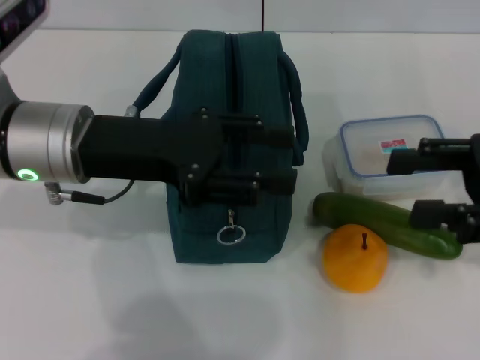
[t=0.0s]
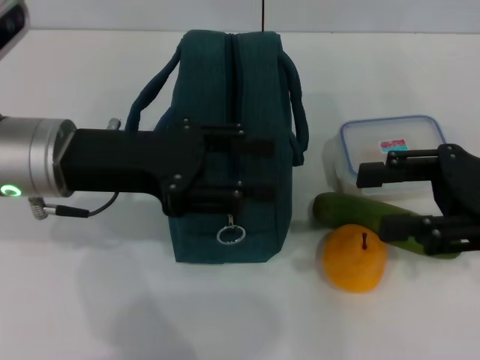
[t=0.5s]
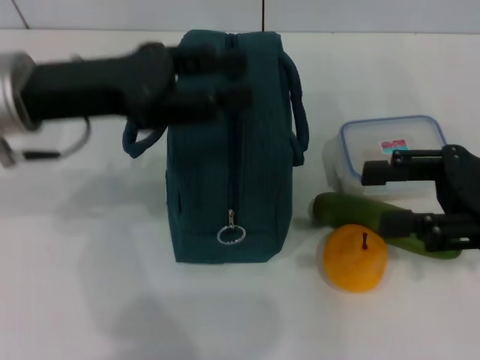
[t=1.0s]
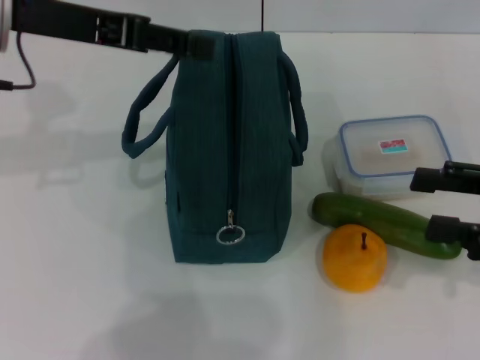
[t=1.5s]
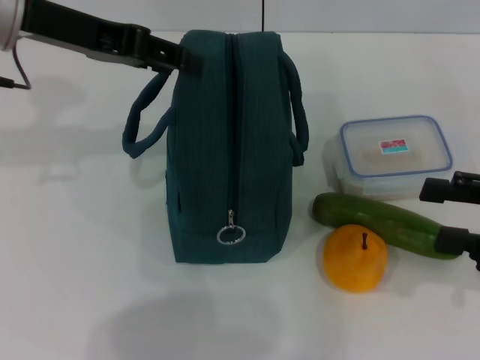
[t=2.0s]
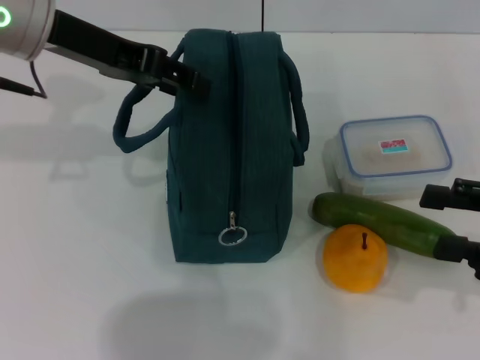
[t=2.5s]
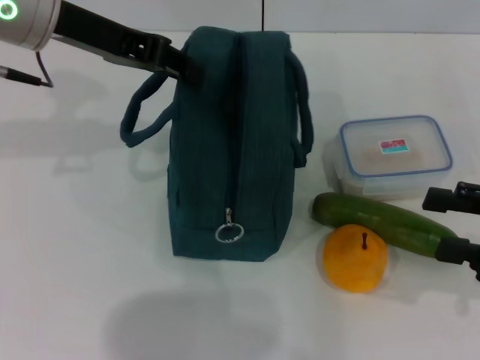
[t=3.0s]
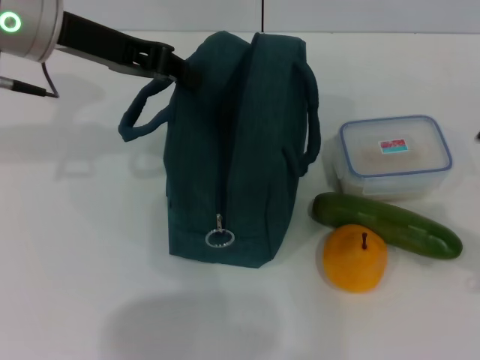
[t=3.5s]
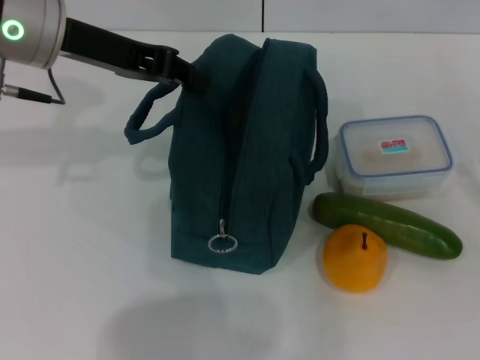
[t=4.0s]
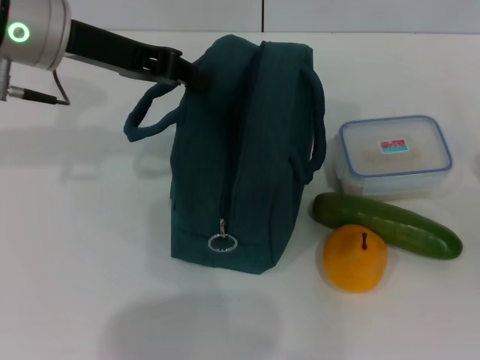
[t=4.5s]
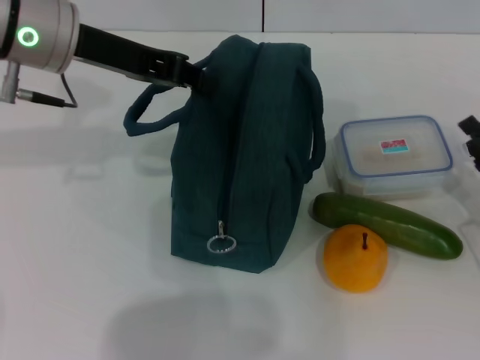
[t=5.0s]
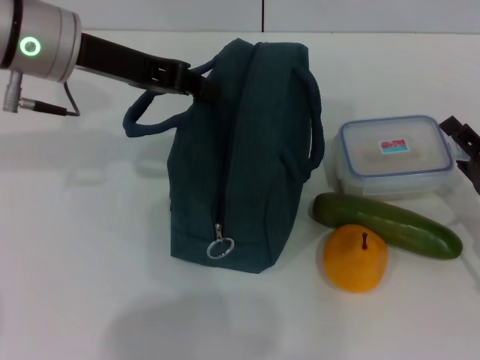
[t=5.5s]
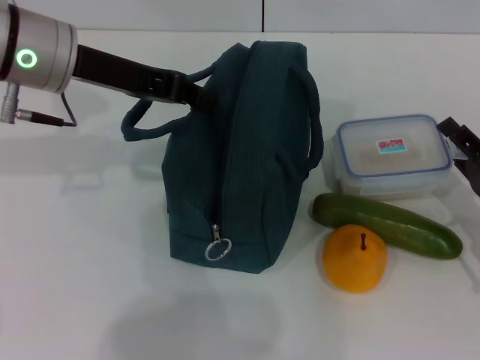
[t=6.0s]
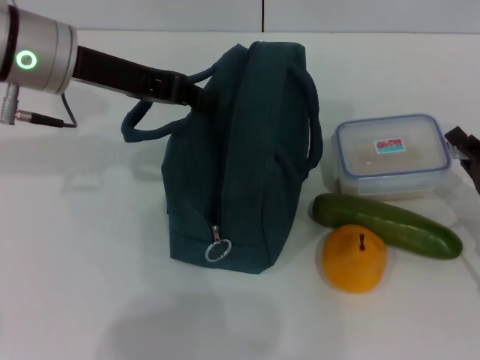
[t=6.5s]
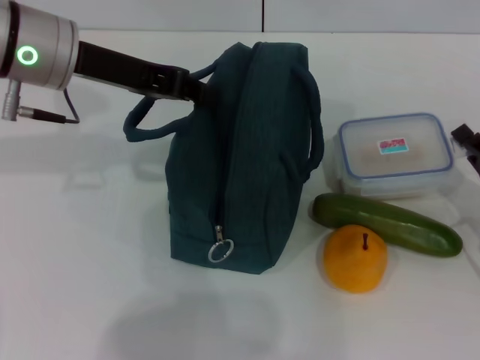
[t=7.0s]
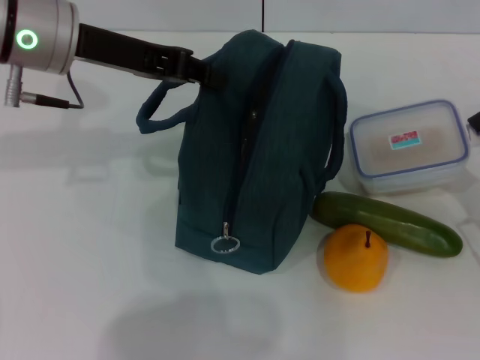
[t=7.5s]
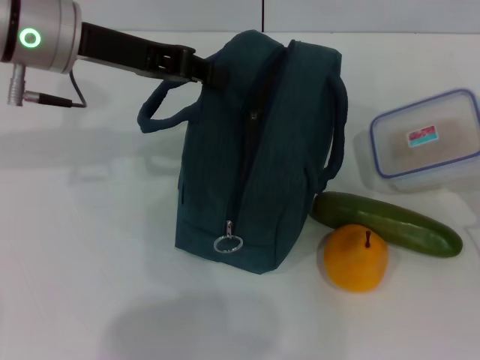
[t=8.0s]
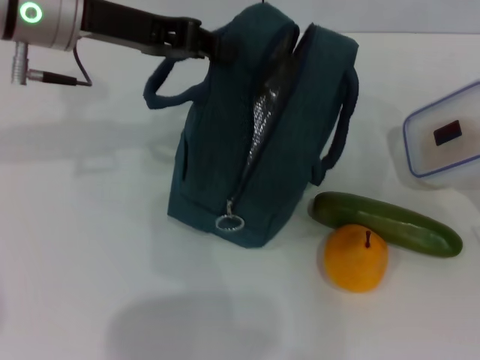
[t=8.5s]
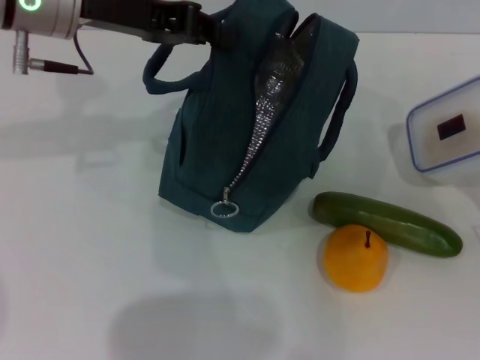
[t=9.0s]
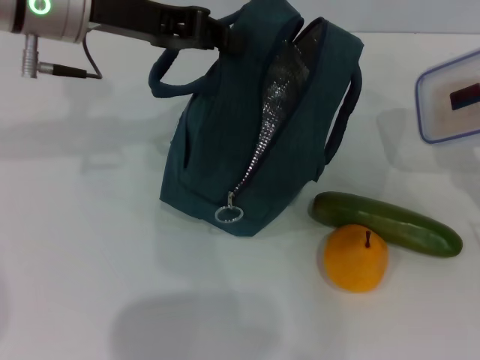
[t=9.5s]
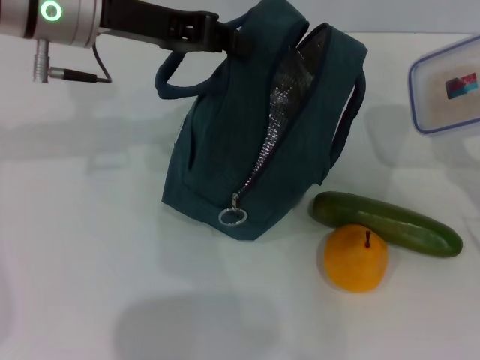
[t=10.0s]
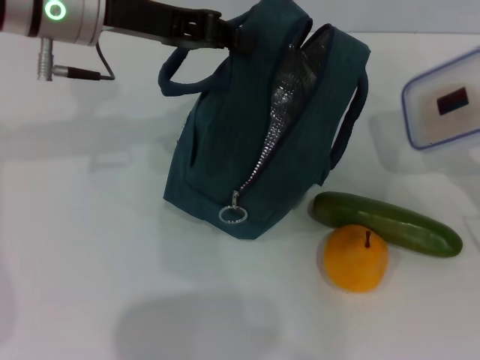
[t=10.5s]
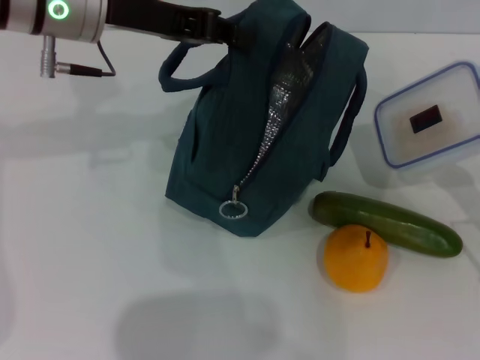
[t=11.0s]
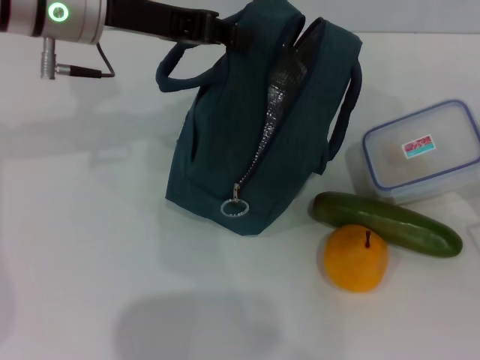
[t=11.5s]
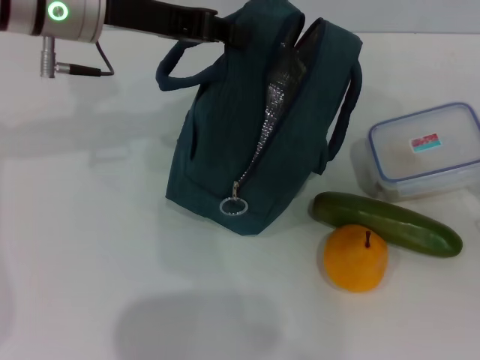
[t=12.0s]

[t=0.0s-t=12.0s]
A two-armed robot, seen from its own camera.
Step, t=0.0s to t=3.0s: Hold the lunch bag with your left hand.
t=0.0s to t=2.0s: The right gripper ends up roughly 5 cm from where it was; the left gripper travels upward and forward by roughly 10 cm.
t=2.0s to t=4.0s: The right gripper shifts roughly 10 cm downward and to the right; the left gripper closes its fingers.
t=4.0s to t=6.0s: The right gripper travels to the left by approximately 10 cm.
t=6.0s to t=8.0s: The right gripper closes up.

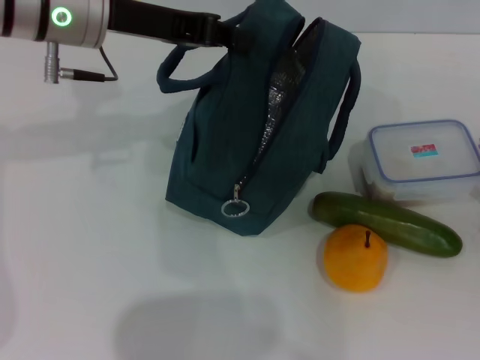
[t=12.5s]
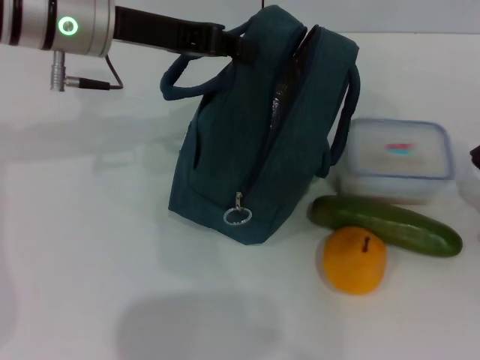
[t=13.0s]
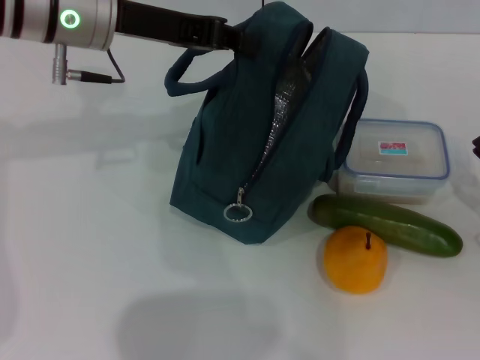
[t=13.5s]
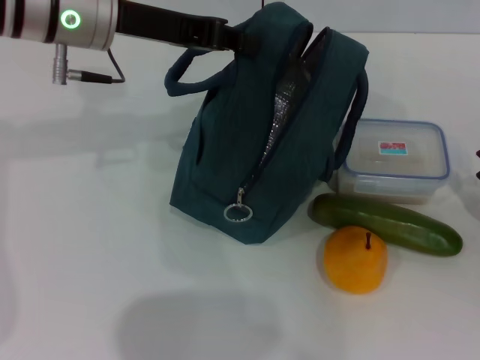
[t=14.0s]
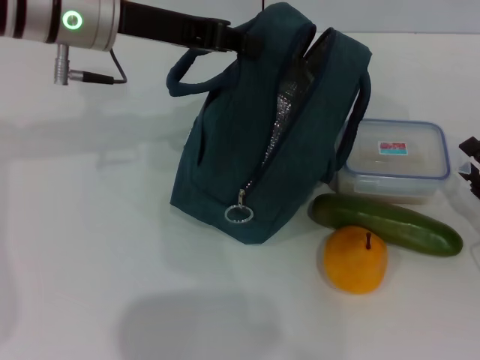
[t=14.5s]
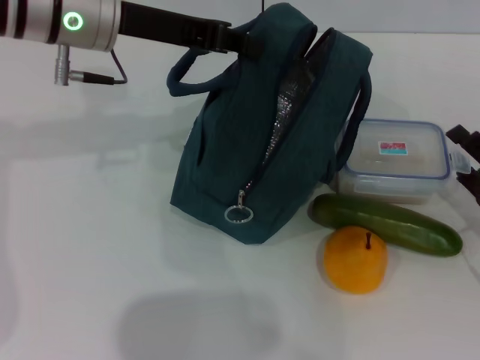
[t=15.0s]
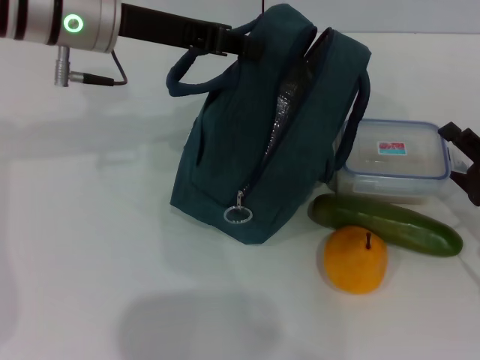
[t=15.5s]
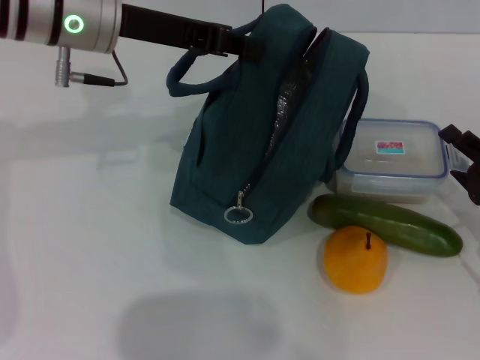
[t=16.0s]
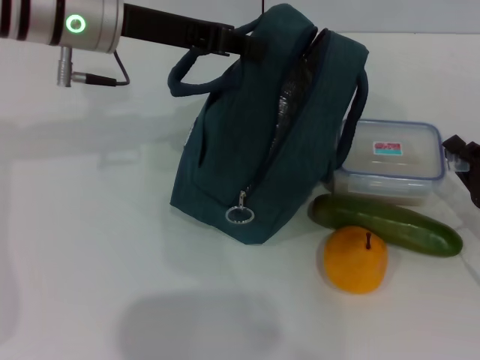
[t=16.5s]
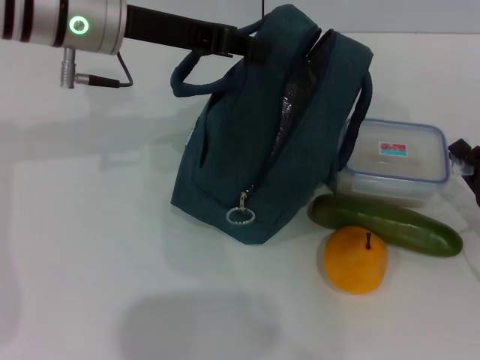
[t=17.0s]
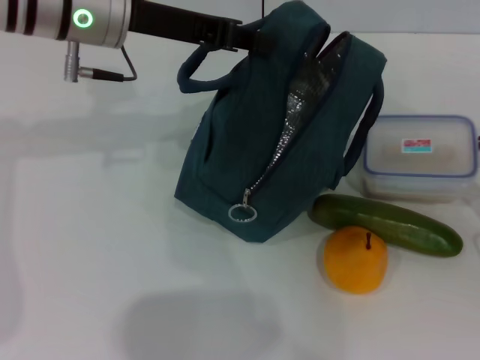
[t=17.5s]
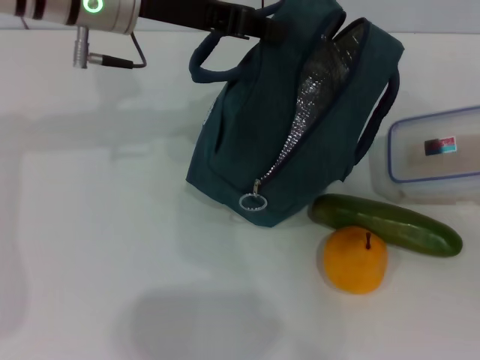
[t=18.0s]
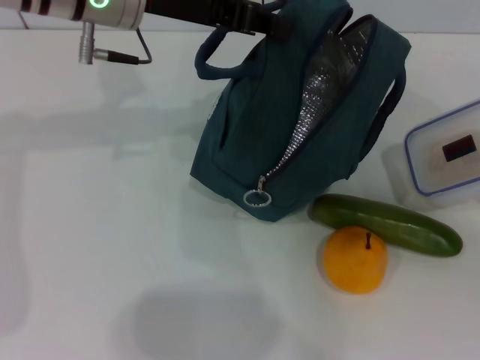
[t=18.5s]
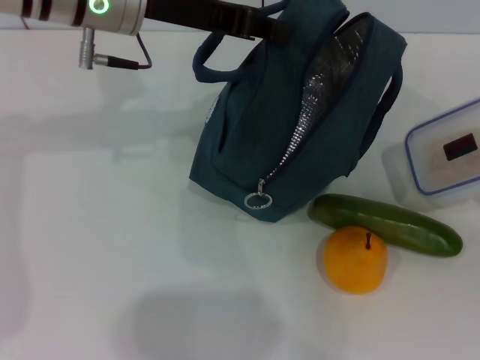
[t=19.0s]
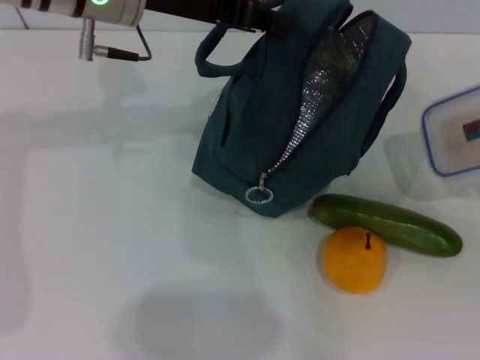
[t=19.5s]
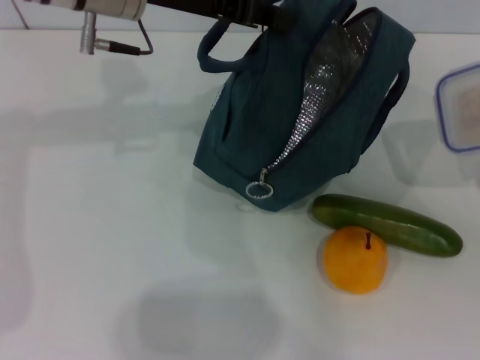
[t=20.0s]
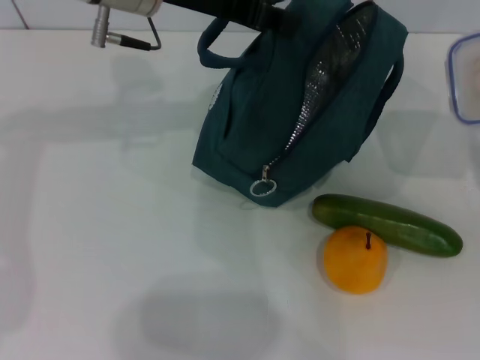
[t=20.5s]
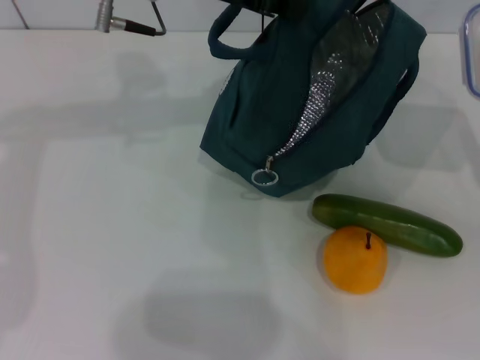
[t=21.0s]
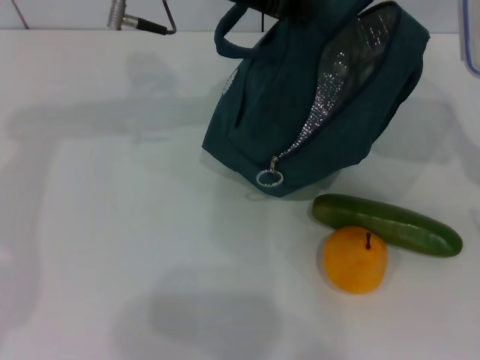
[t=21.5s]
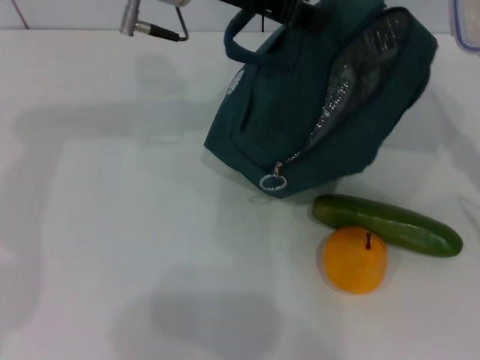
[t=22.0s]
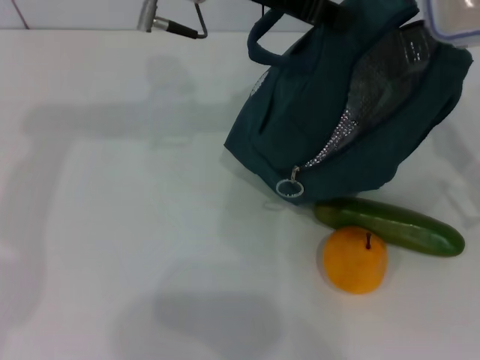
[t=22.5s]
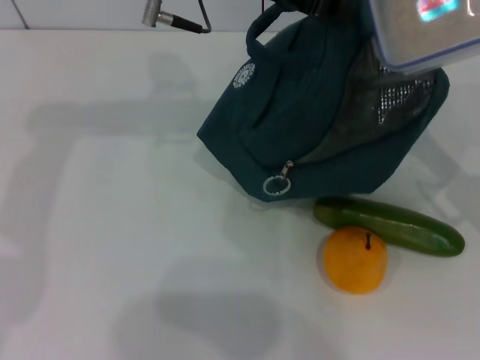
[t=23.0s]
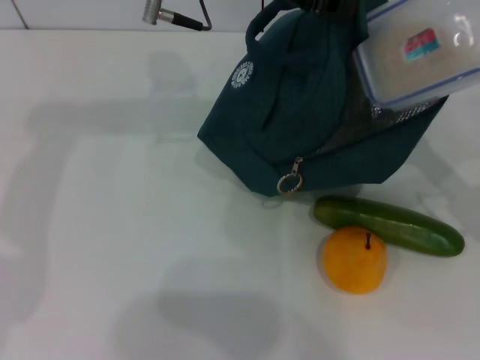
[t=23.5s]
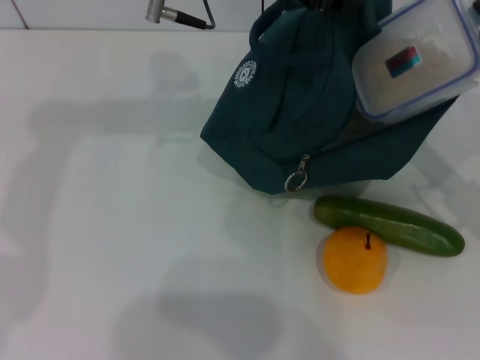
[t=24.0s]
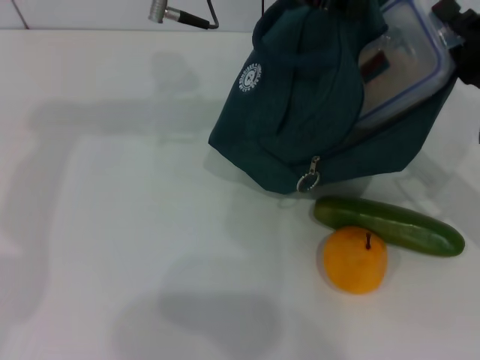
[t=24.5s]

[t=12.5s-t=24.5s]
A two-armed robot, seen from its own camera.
Step, t=12.5s to t=16.5s: Pick up the lunch box with your right hand.
t=12.5s to t=14.5s: The right gripper opens.
t=14.5s to t=16.5s: The right gripper closes up.
t=16.5s to t=18.5s: The right gripper shifts by roughly 5 cm.
t=18.5s to t=20.5s: The grippers move only a little.
t=20.5s to t=22.5s: The right gripper travels forward by some 5 cm.
t=22.5s to t=24.5s: The right gripper ends up about 5 cm from where it was.

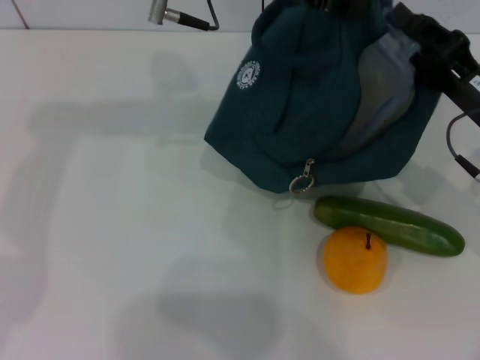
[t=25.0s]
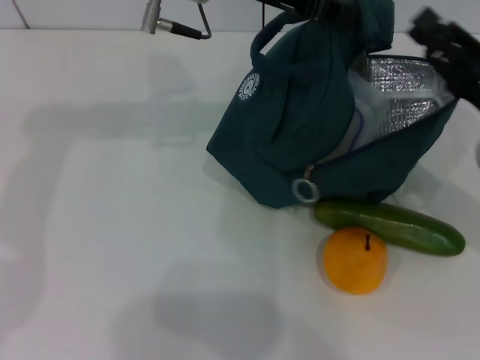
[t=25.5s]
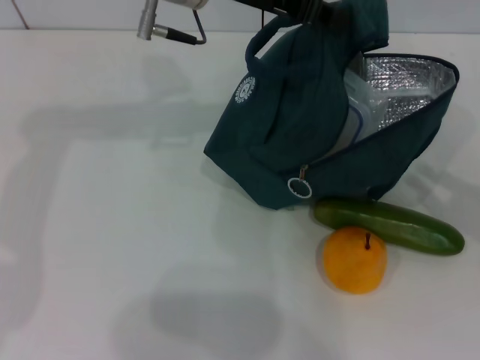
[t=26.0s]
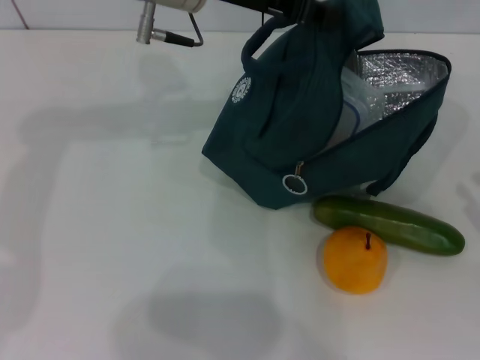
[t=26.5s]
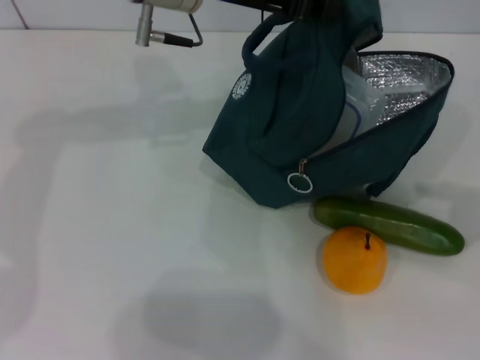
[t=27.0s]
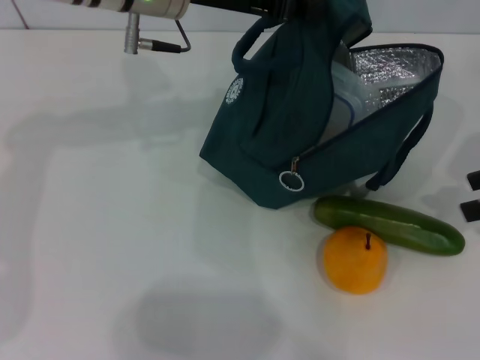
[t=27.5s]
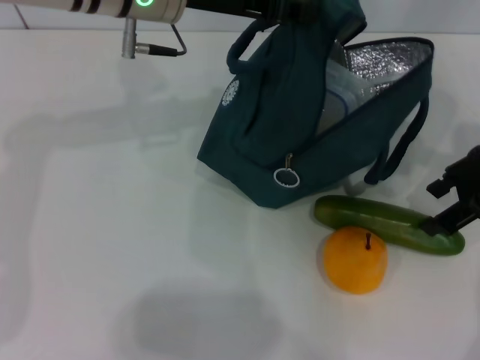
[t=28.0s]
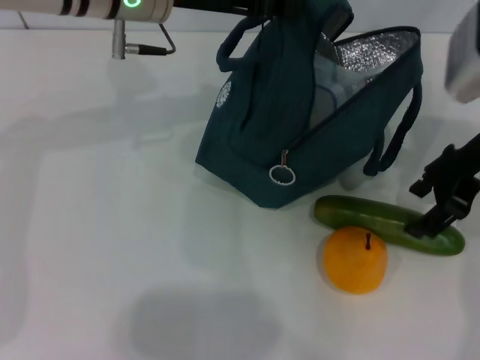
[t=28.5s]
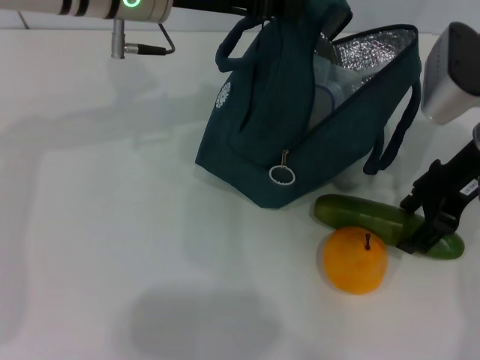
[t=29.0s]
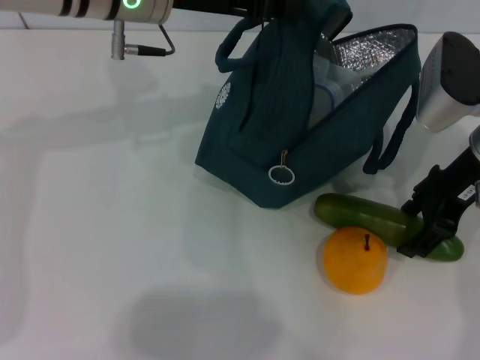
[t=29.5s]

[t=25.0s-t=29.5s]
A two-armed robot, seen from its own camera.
t=25.0s to t=27.0s: The right gripper goes roughly 20 cm to the right, upward and backward.
t=27.0s to t=29.5s: The right gripper heads to the left and forward, covering roughly 20 cm, and opens its fingers.
